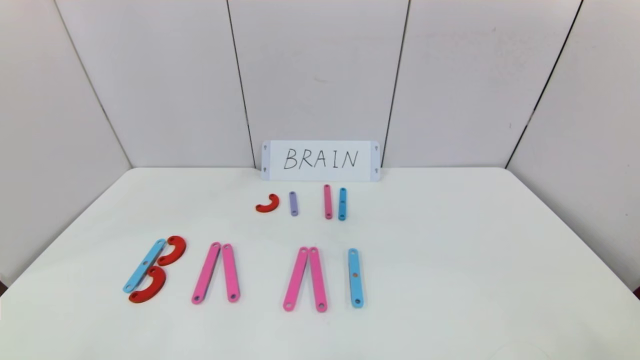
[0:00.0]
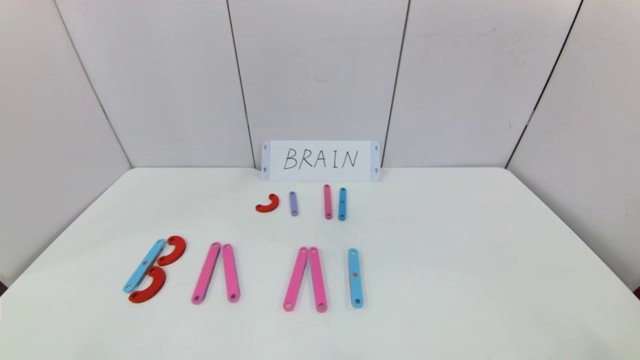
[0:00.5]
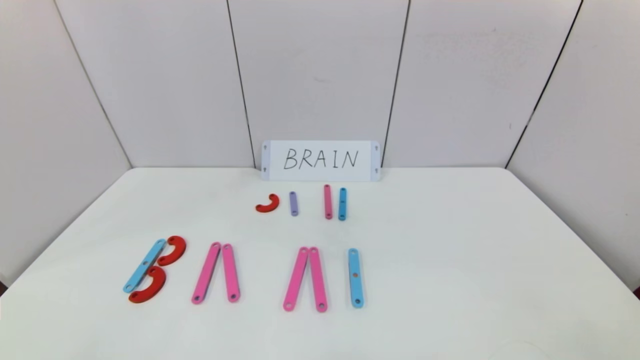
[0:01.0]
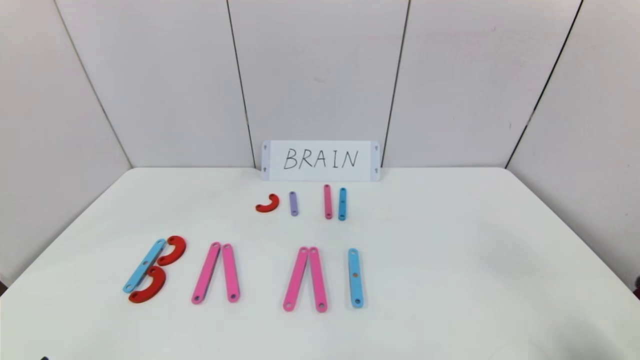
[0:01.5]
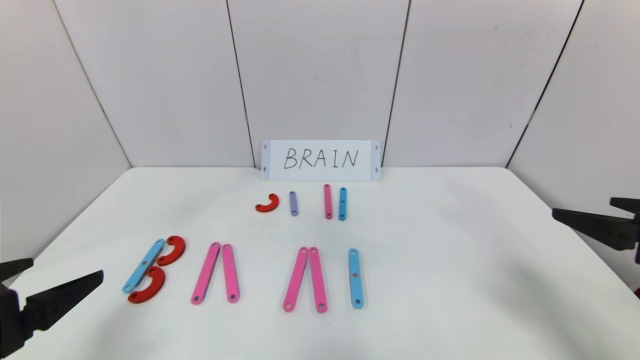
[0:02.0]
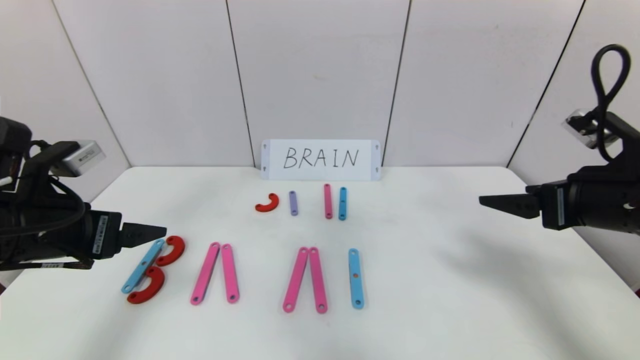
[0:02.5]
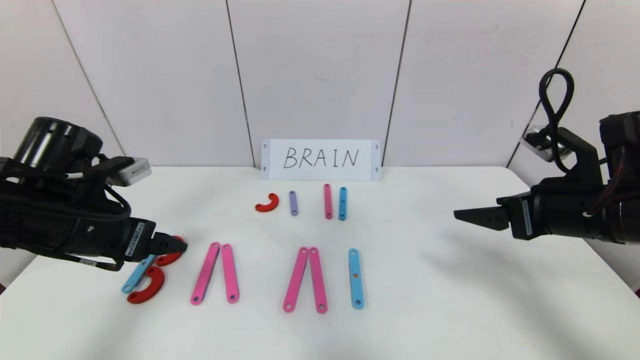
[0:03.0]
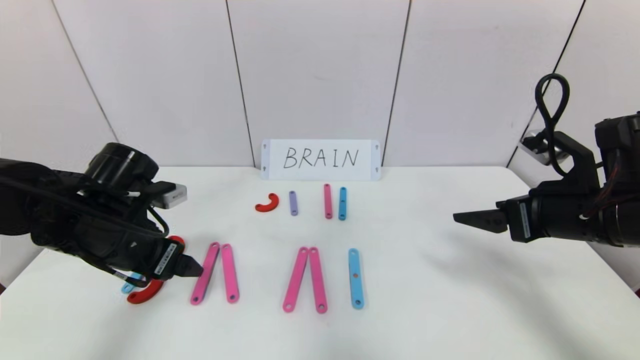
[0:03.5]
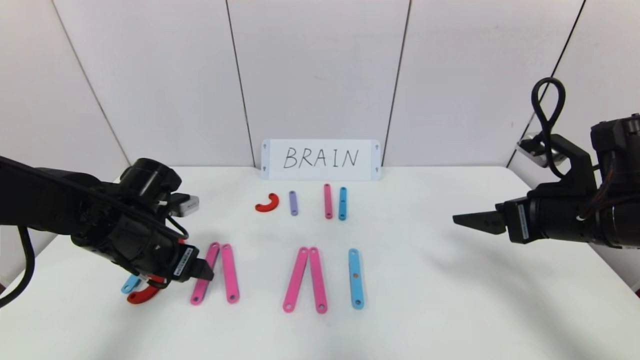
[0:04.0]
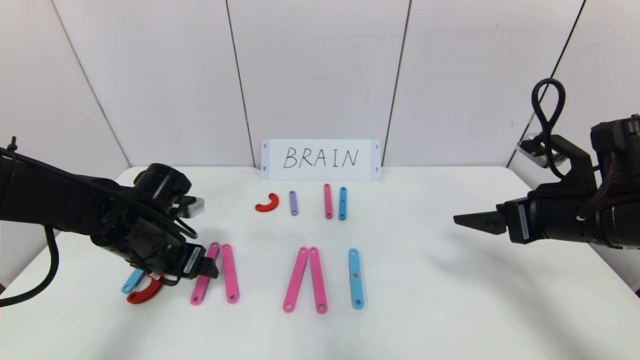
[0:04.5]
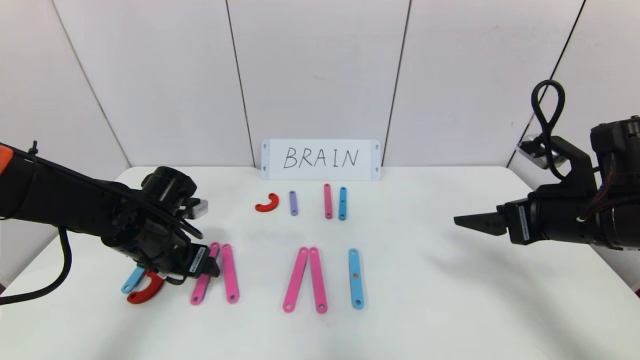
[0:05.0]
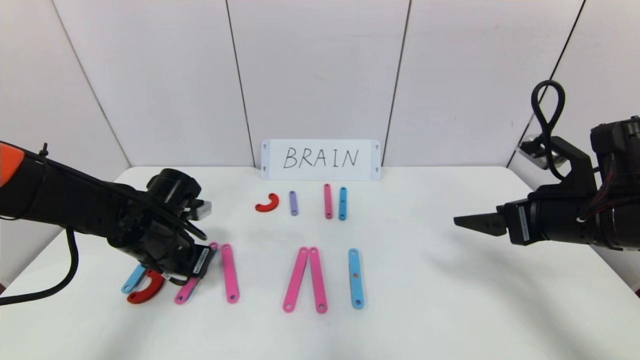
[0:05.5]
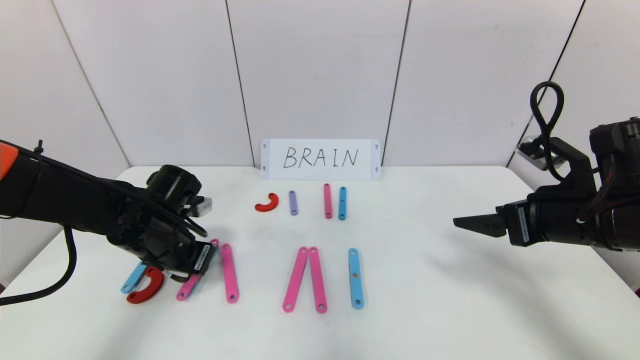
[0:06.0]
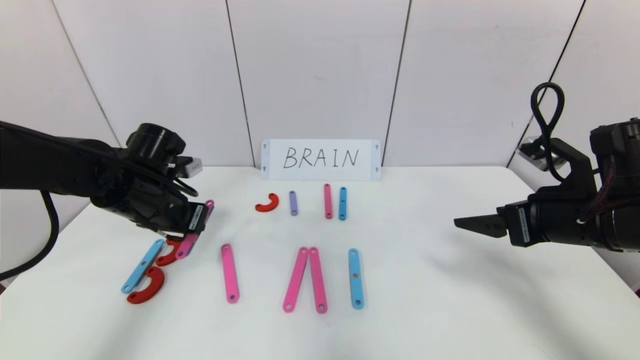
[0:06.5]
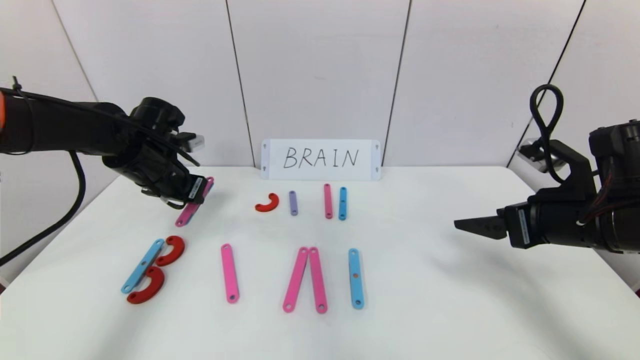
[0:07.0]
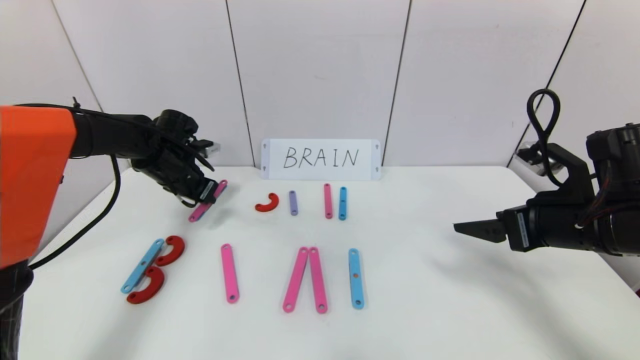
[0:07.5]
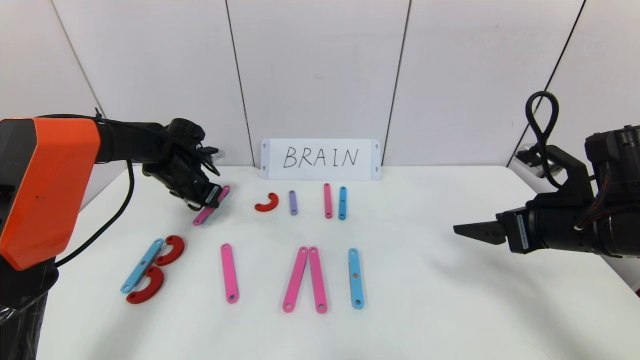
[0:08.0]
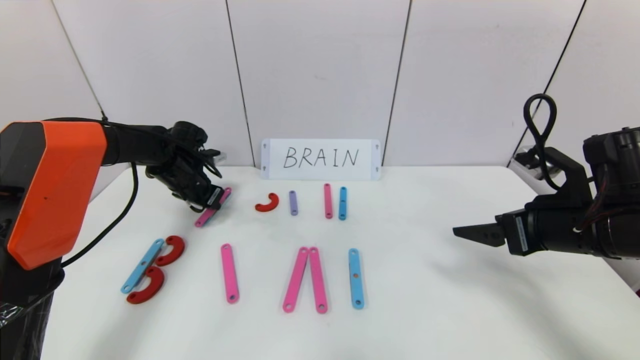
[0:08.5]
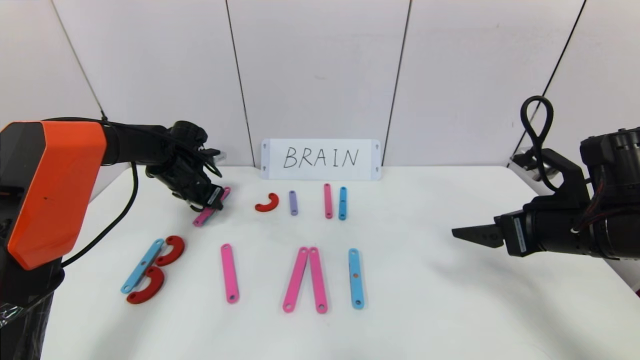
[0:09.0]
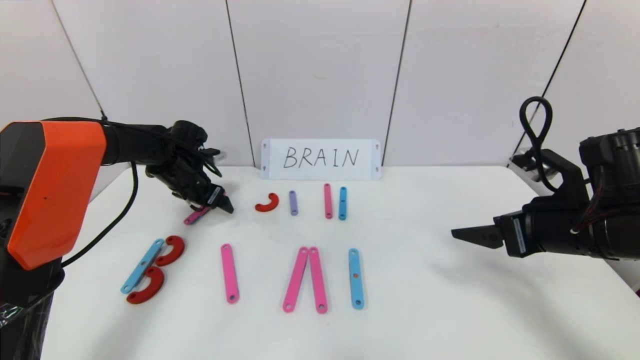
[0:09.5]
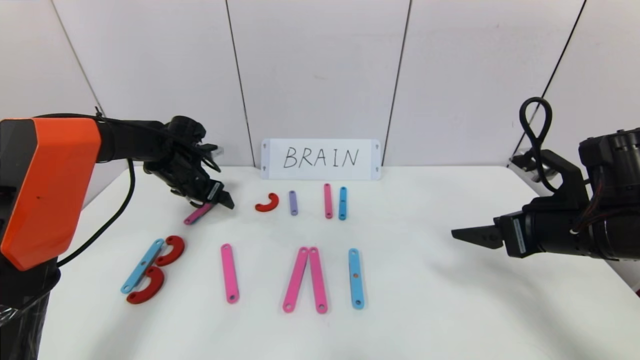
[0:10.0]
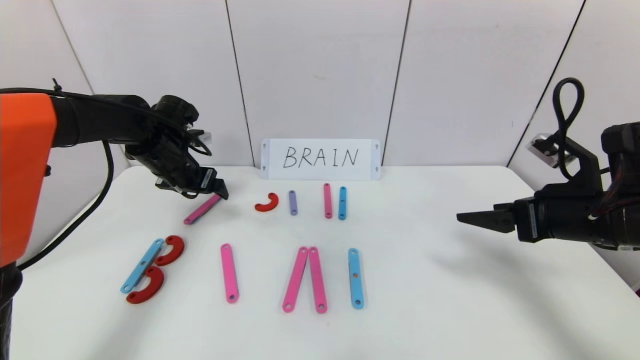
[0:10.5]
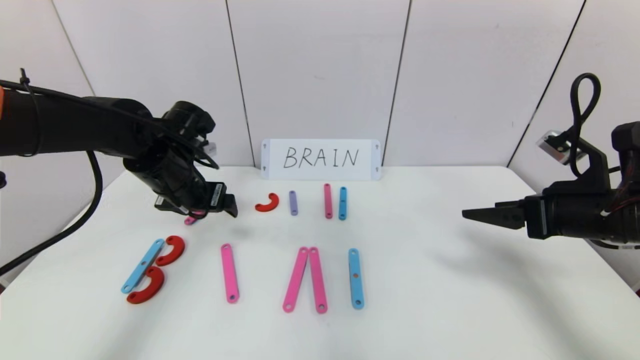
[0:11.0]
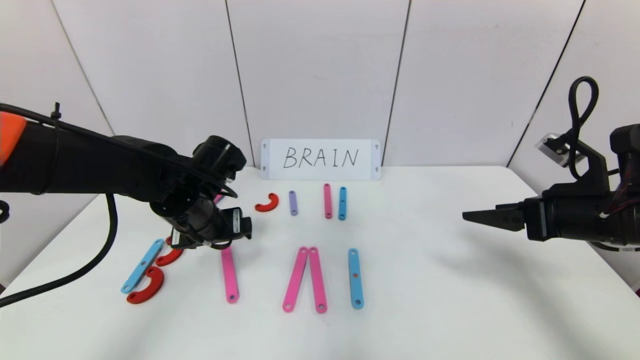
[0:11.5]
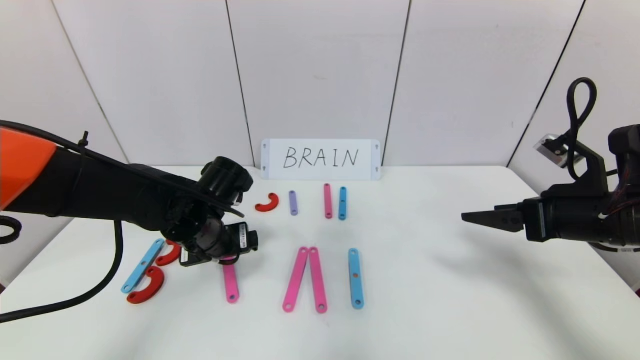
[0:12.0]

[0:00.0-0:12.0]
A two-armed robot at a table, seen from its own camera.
Task of the whole recording: rearrange the word baai as brain.
0:00.0 to 0:02.0: The left gripper travels upward and forward by about 20 cm. Meanwhile the right gripper heads forward and upward, covering about 25 cm.
0:02.0 to 0:04.0: The left gripper moves forward and downward, some 20 cm, while the right gripper is displaced forward by about 10 cm.
0:04.0 to 0:06.0: The left gripper closes.
0:06.0 to 0:08.0: The left gripper is displaced forward by approximately 15 cm.
0:08.0 to 0:10.0: The left gripper opens.
0:10.0 to 0:12.0: The left gripper is displaced backward and to the right by approximately 20 cm.

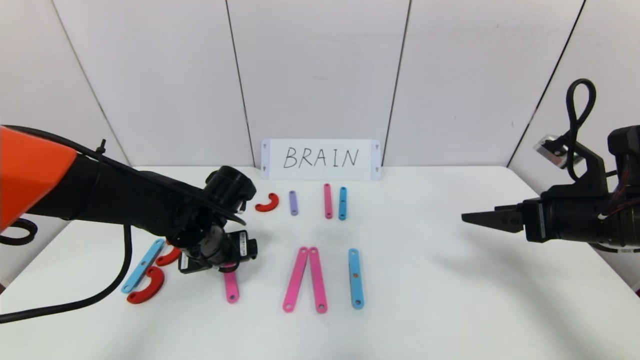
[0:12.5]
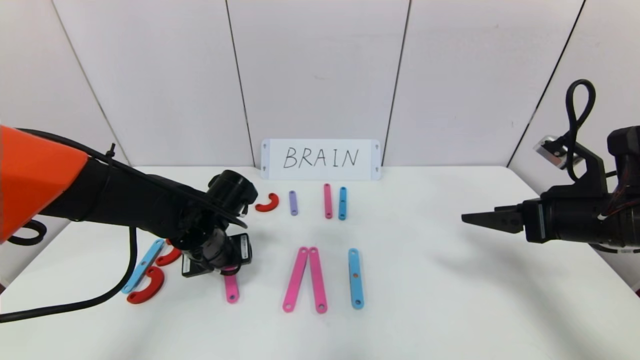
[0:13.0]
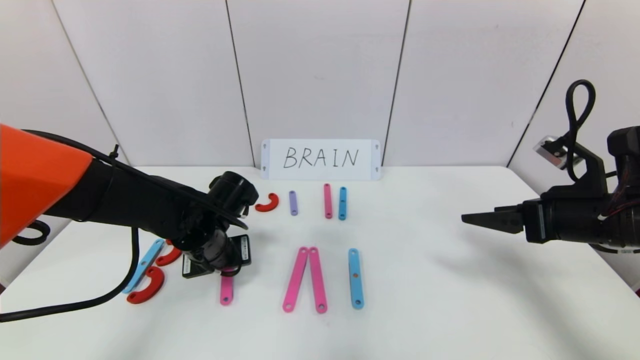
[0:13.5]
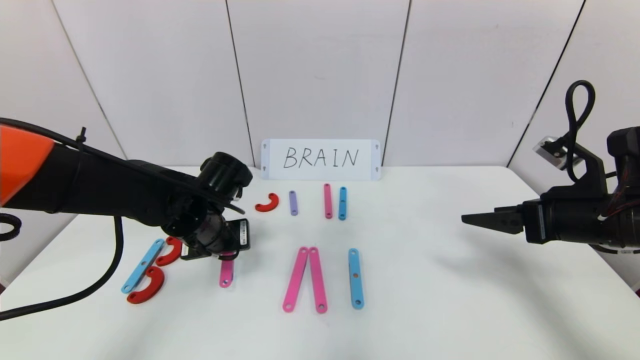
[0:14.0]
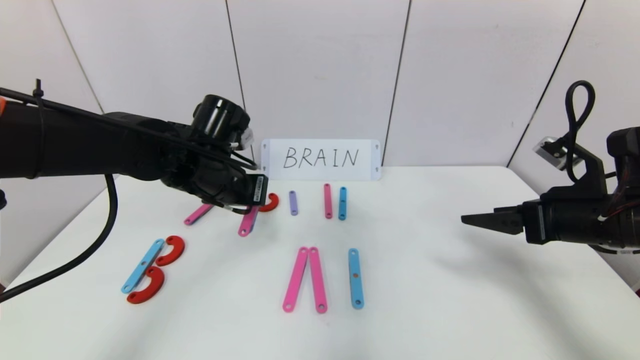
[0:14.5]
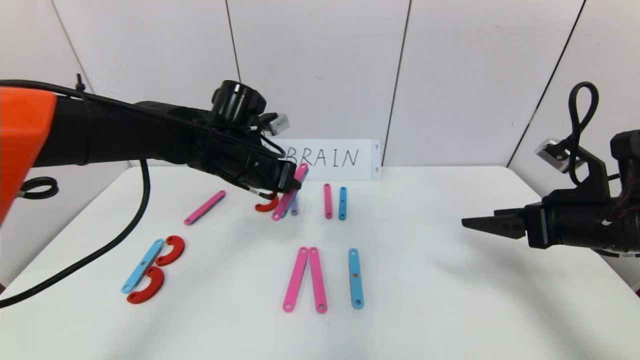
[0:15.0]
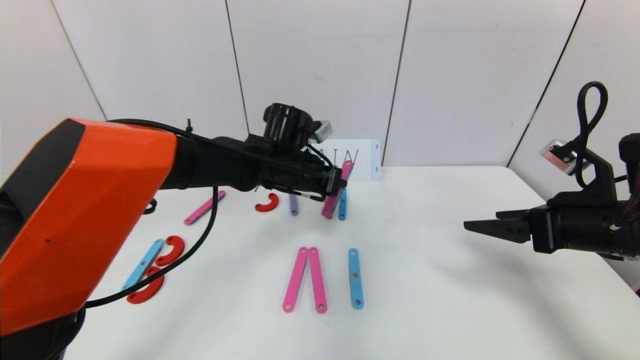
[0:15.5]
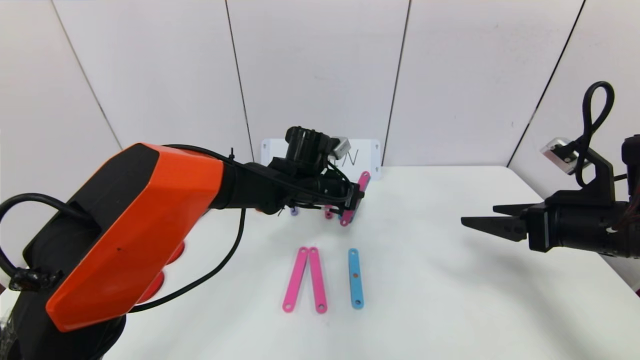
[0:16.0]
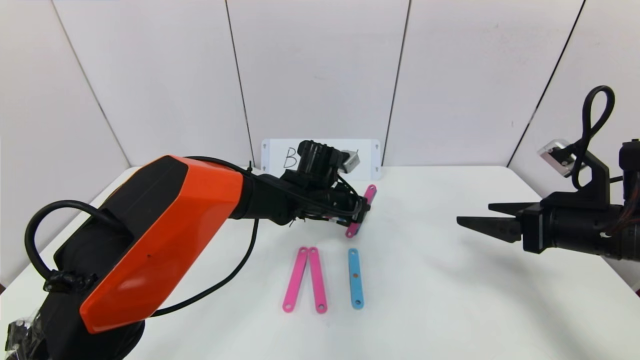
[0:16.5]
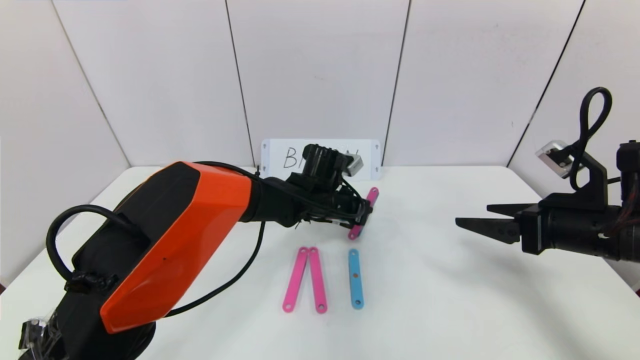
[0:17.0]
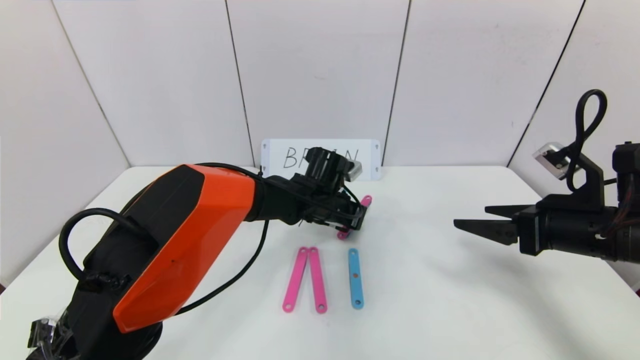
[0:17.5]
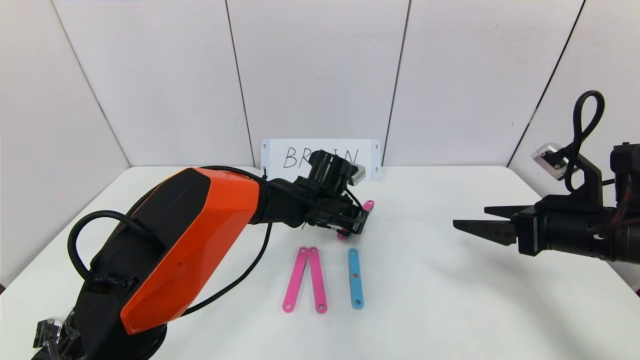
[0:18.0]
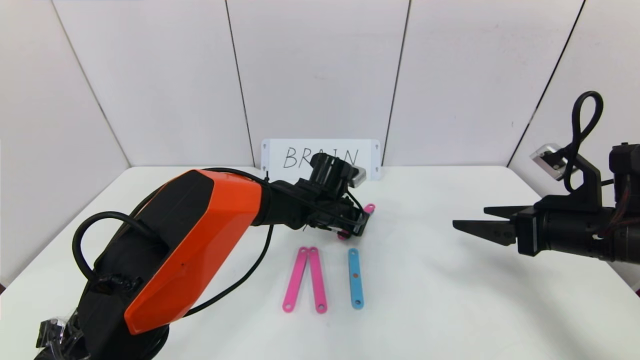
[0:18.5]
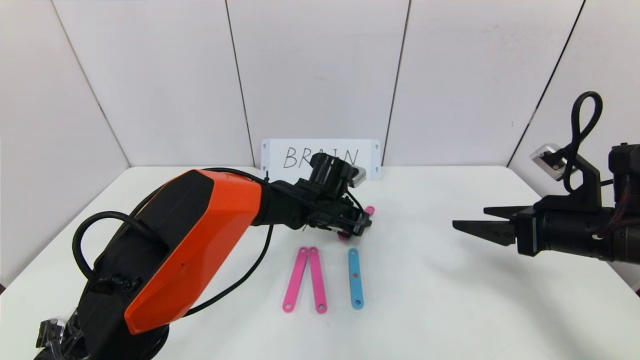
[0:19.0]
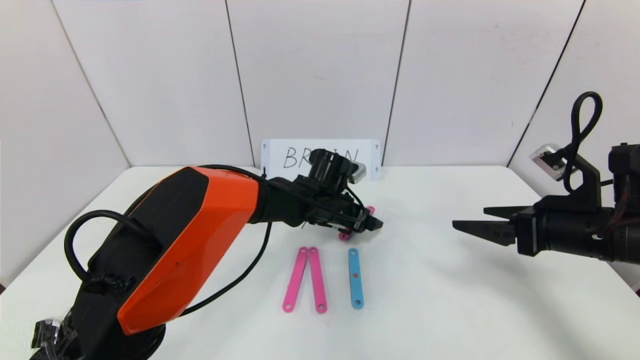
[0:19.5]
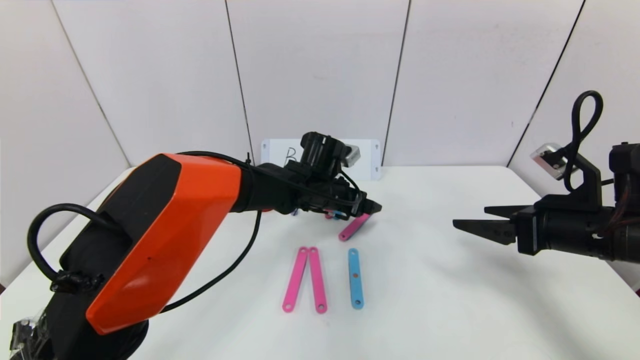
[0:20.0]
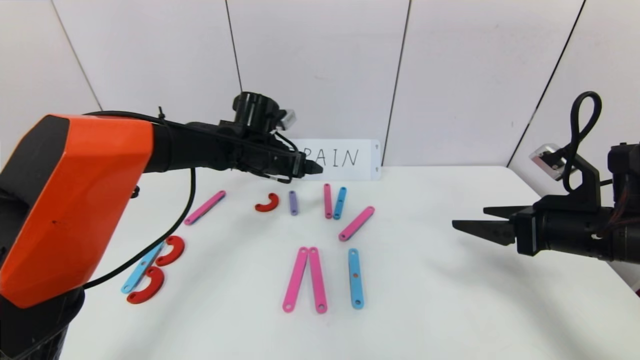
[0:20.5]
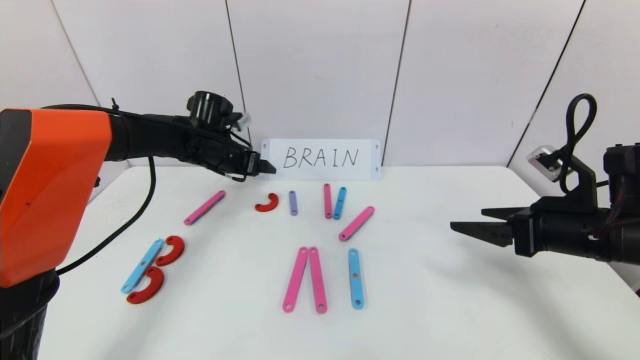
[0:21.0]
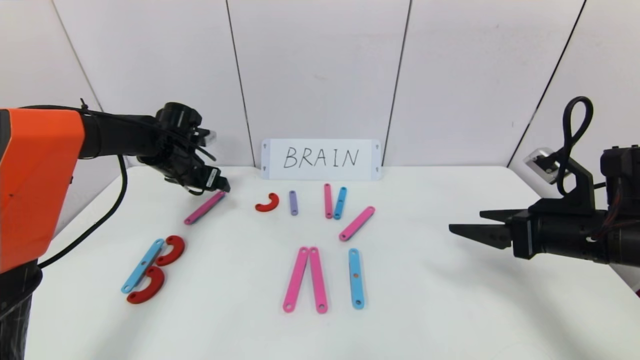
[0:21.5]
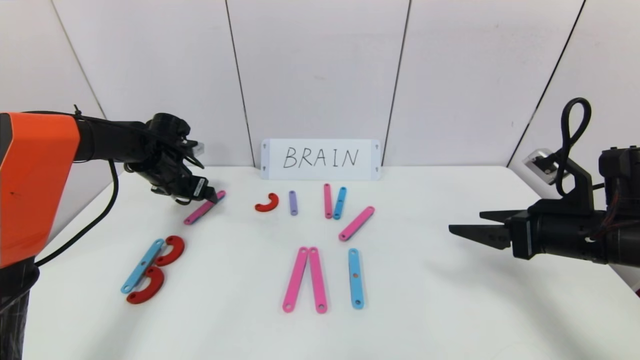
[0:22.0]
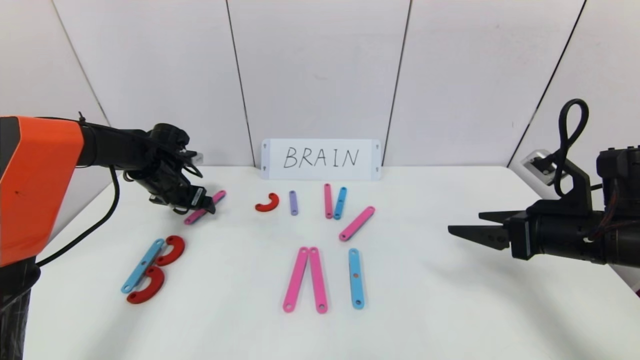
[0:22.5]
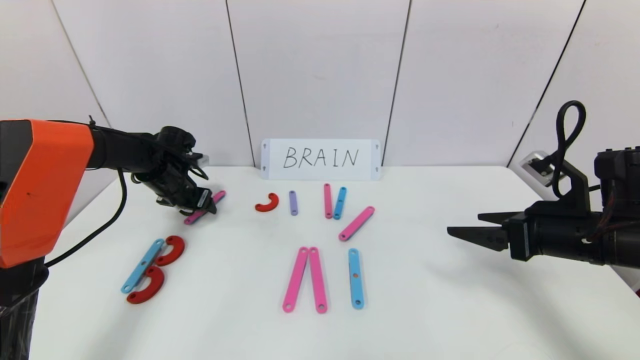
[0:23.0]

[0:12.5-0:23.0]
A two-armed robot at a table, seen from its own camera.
Task of the whole recording: rearrange the word baai as brain.
Step, 0:12.5 to 0:19.5: Disassemble the second character A.
0:12.5 to 0:14.5: The left gripper travels upward by approximately 10 cm, and closes up.
0:14.5 to 0:16.5: The left gripper shifts approximately 20 cm to the right, downward and forward.
0:16.5 to 0:19.0: The left gripper opens.
0:19.0 to 0:21.0: The left gripper travels to the left and upward by roughly 25 cm, and opens its fingers.
0:21.0 to 0:23.0: The left gripper moves to the left and downward, about 10 cm.
